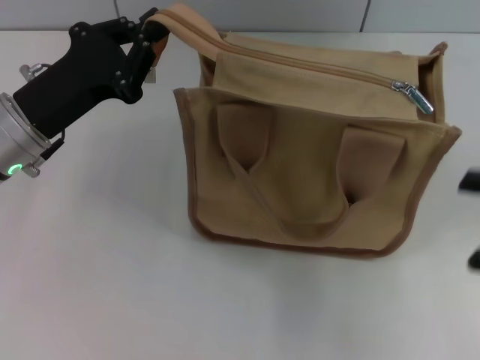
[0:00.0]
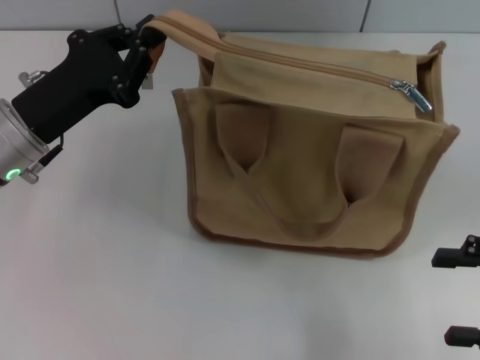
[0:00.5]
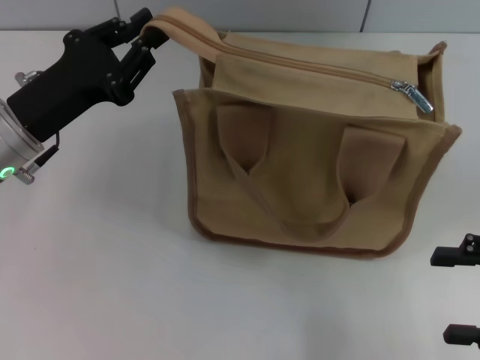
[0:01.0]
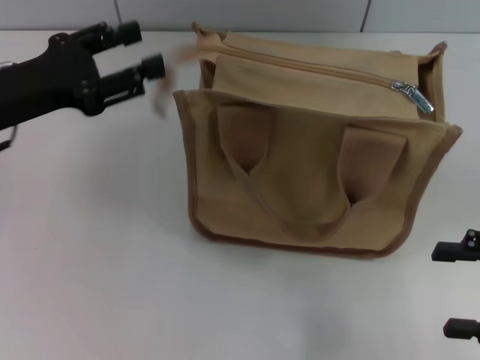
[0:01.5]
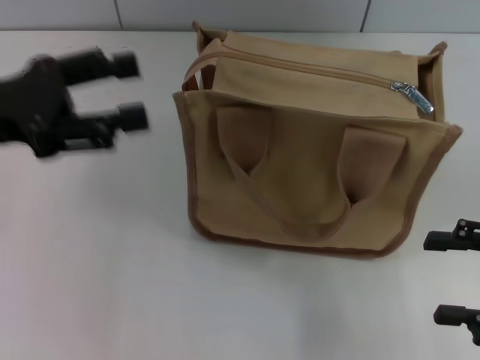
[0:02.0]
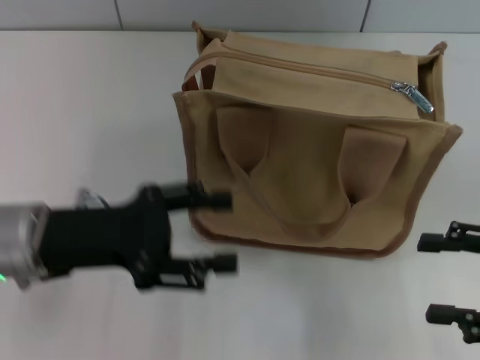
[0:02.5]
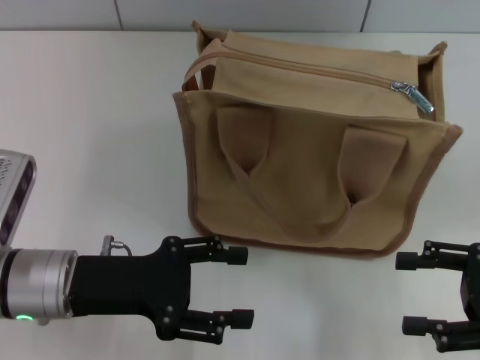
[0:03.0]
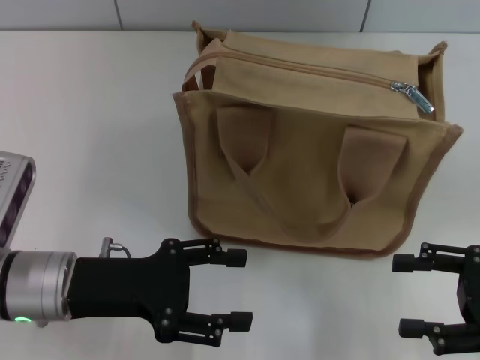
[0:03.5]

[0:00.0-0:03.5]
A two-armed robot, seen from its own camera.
0:00.0 to 0:02.0: The left gripper moves upward and to the left, approximately 10 cm, and opens up.
0:02.0 to 0:03.5: The left gripper heads downward, to the right and backward, covering roughly 15 cm.

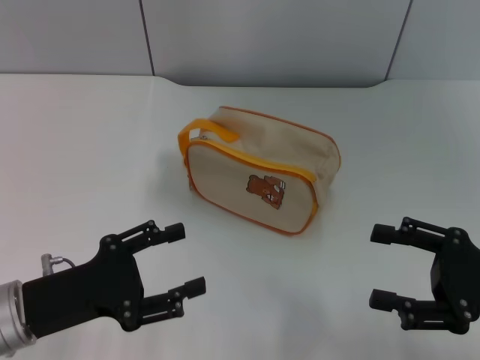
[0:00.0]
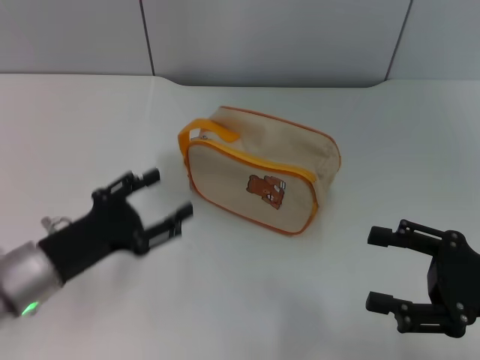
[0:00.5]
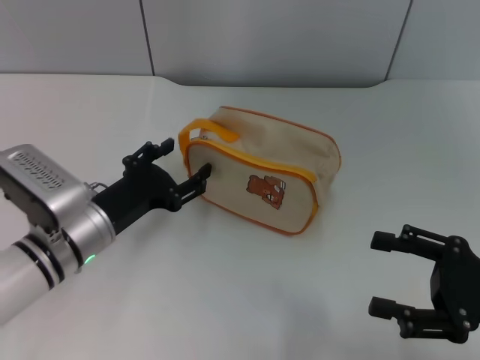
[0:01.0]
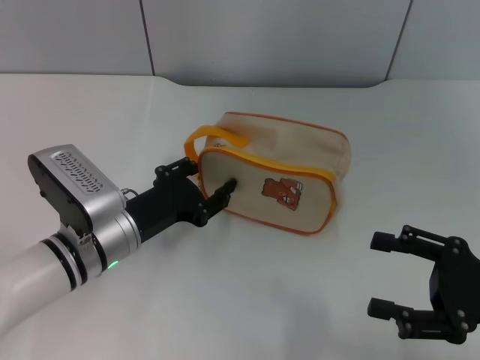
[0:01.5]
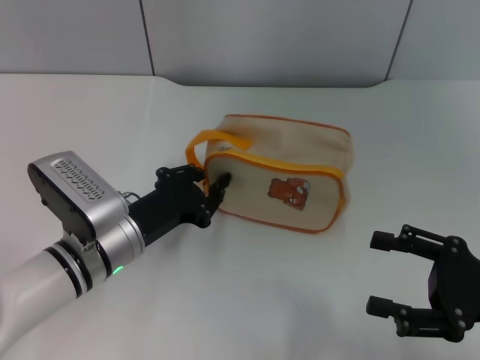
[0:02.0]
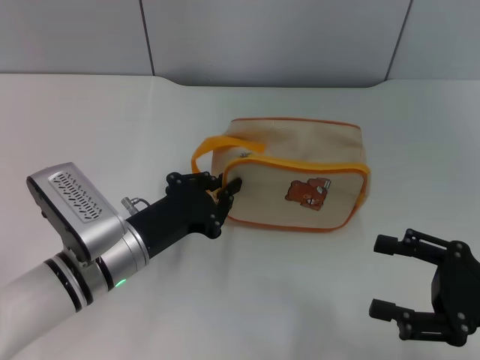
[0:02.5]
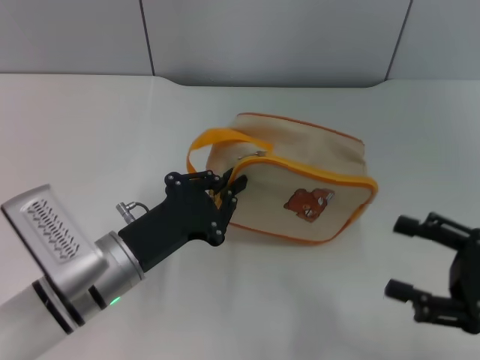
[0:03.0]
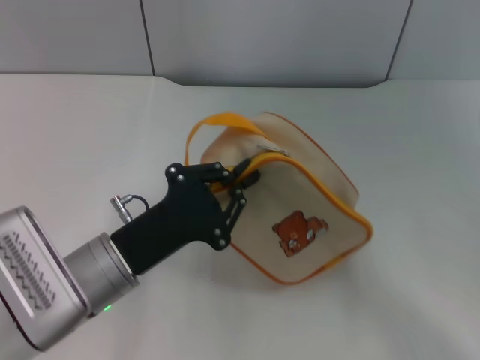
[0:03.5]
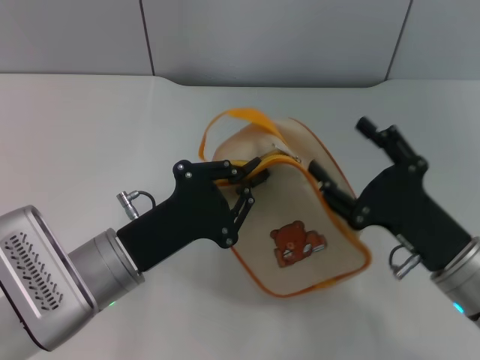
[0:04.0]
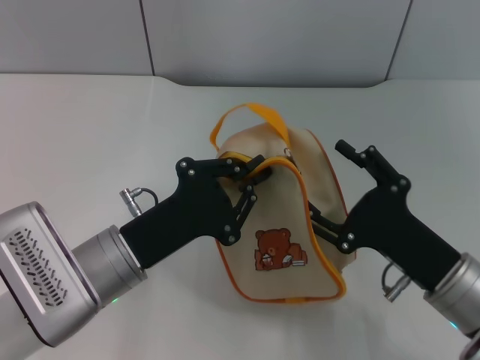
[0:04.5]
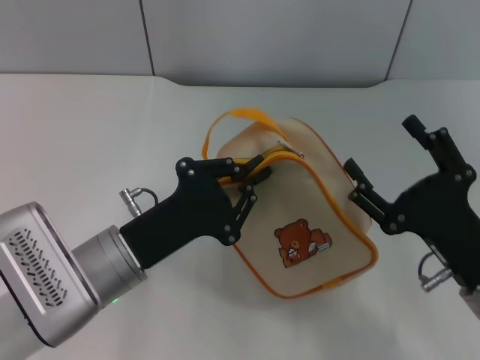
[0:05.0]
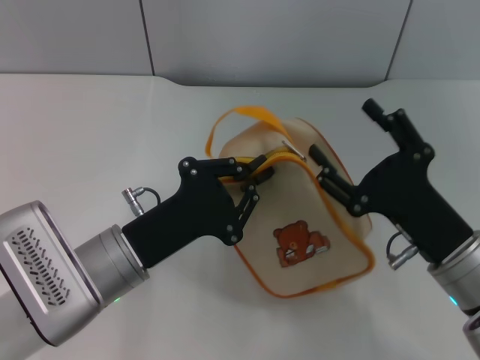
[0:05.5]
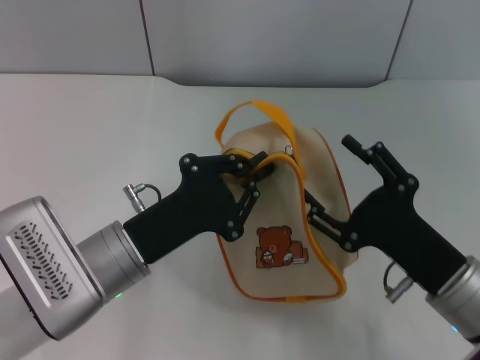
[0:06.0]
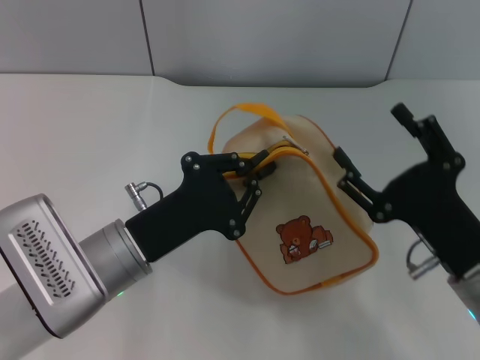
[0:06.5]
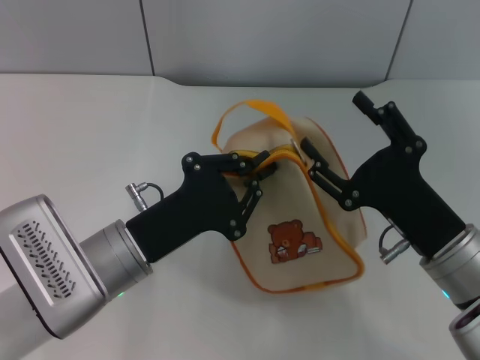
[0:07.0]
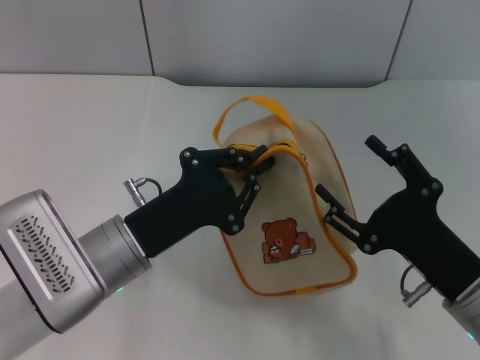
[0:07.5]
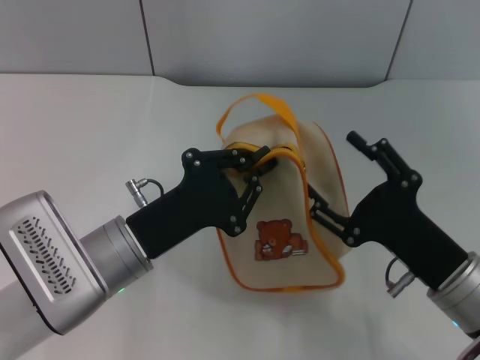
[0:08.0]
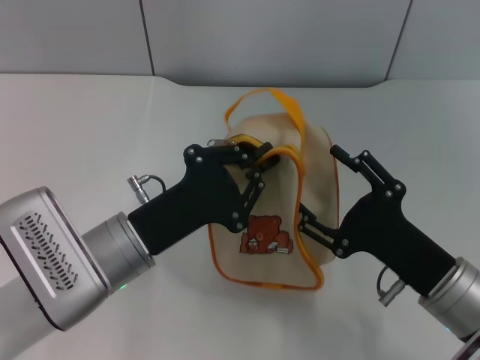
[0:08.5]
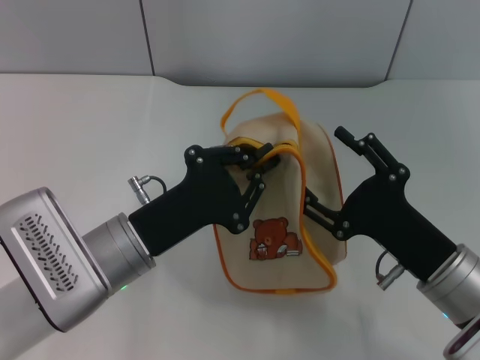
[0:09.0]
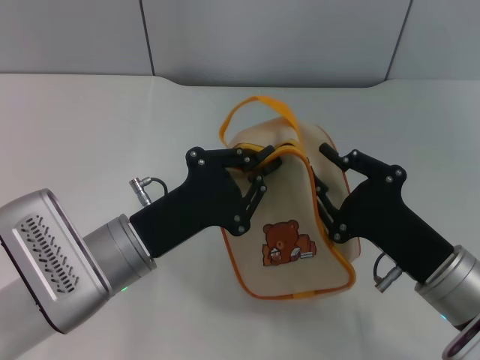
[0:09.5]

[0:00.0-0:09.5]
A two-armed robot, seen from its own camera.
Step, 0:00.0 to 0:03.5: Pick up the bag with left gripper.
0:00.0 to 0:02.0: The left gripper is displaced to the right and forward by about 10 cm, and closes its fingers.
0:02.0 to 0:04.0: The left gripper shifts by some 5 cm, and closes its fingers. The right gripper shifts about 10 cm to the left.
0:04.0 to 0:07.5: There are only small adjustments of the grippers.
0:07.5 to 0:09.5: The right gripper closes up.

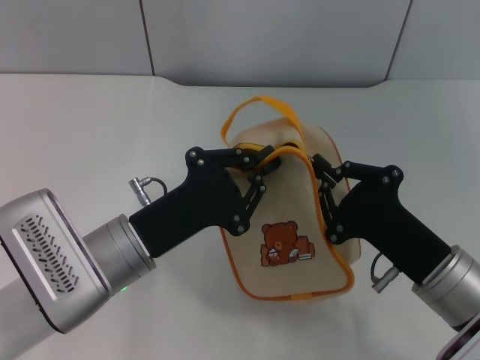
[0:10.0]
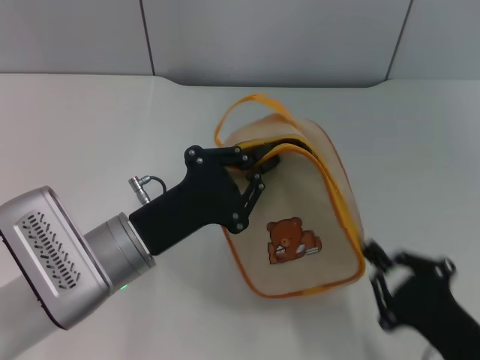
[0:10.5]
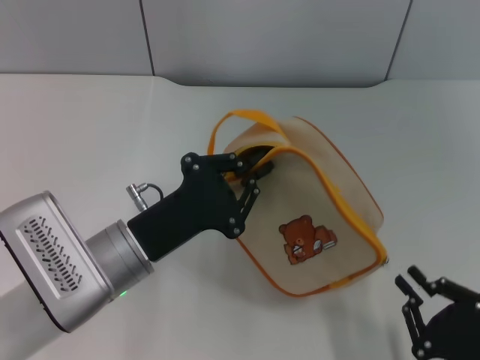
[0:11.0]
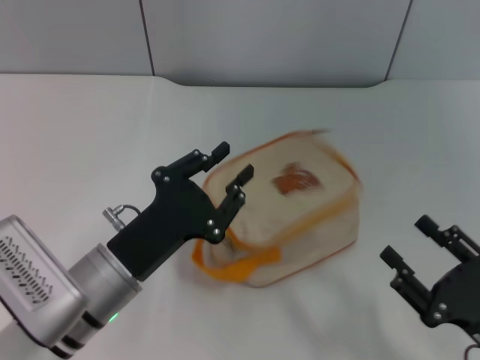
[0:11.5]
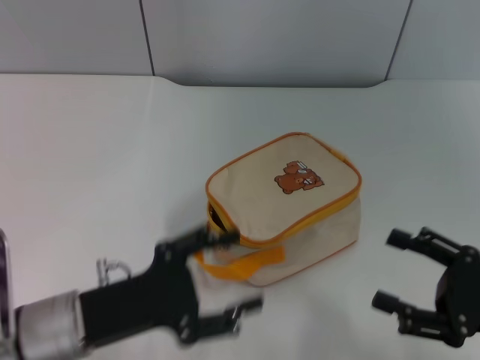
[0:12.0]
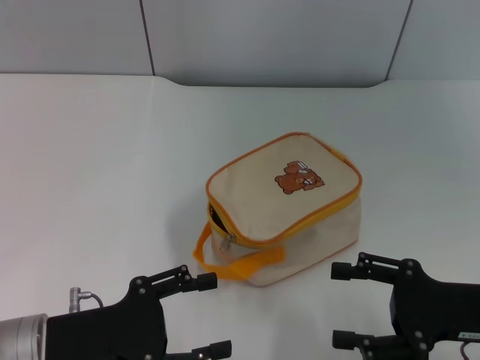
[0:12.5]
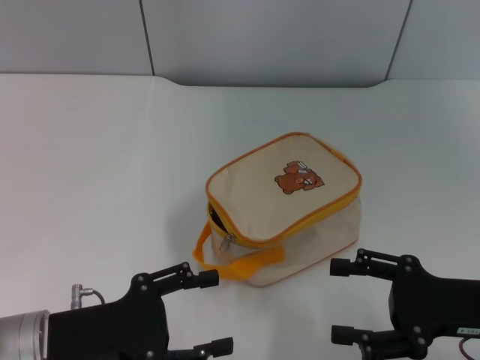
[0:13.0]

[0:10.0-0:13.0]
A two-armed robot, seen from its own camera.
0:10.0 to 0:11.5: The right gripper moves backward and to the right, about 10 cm, and opens.
0:11.5 to 0:13.0: The right gripper heads forward and upward, covering approximately 10 cm, and opens, while the left gripper travels to the left by roughly 5 cm, and opens up.

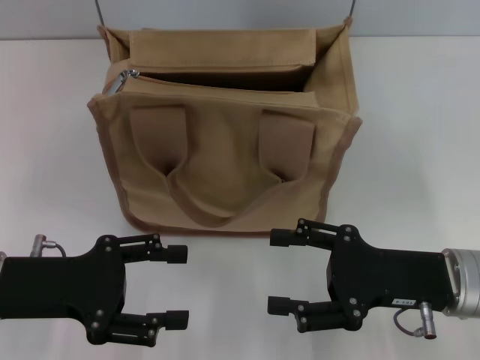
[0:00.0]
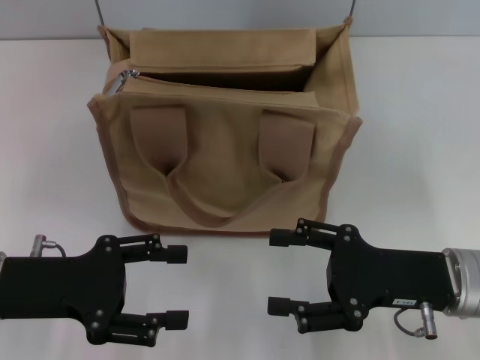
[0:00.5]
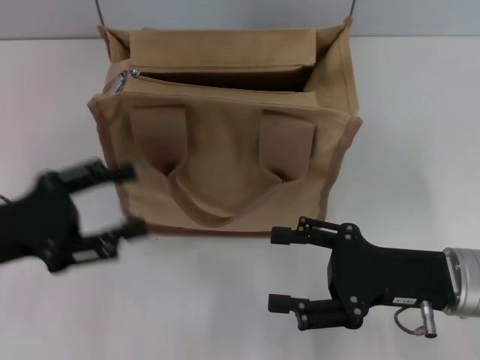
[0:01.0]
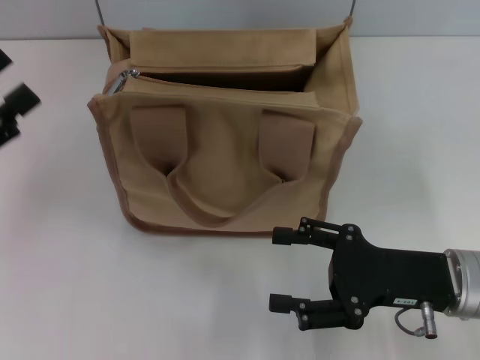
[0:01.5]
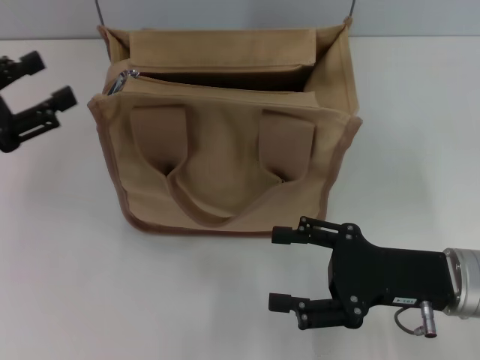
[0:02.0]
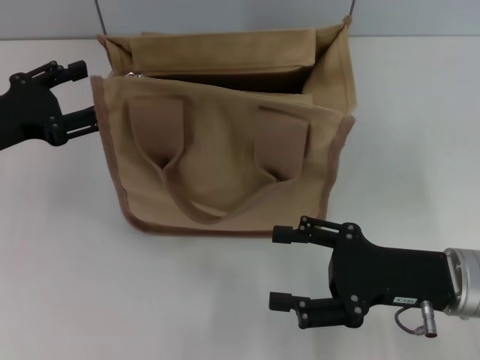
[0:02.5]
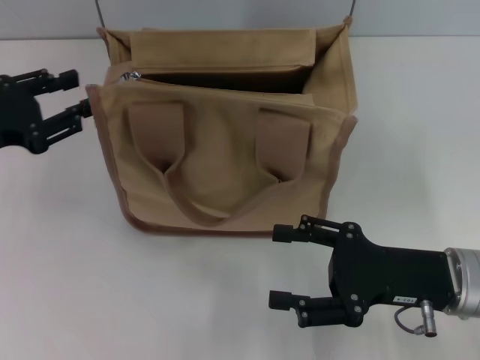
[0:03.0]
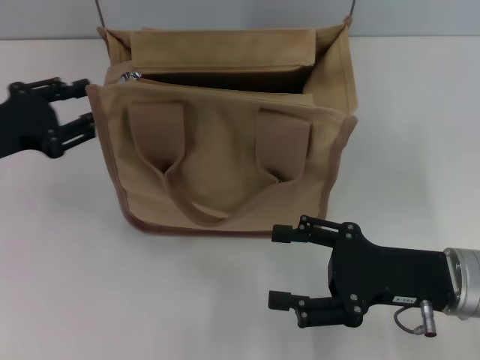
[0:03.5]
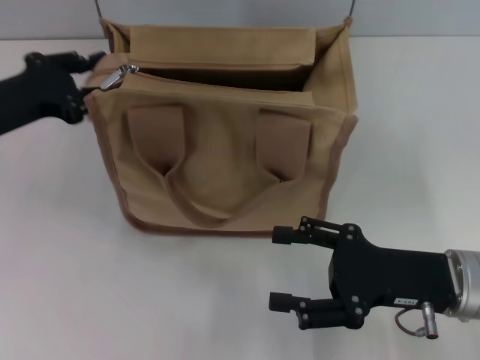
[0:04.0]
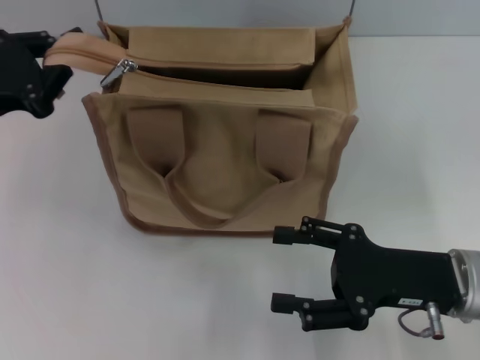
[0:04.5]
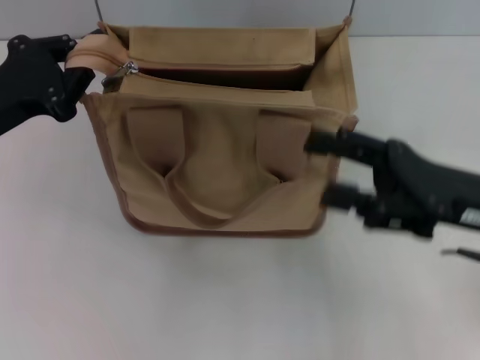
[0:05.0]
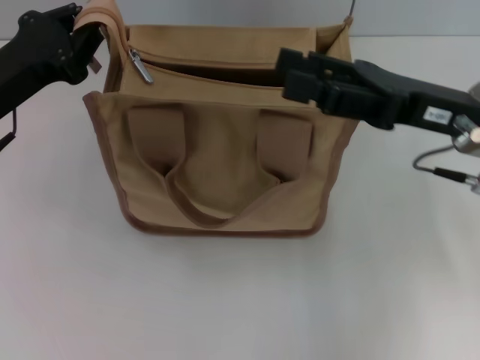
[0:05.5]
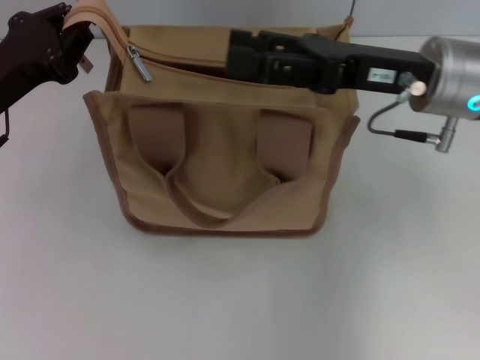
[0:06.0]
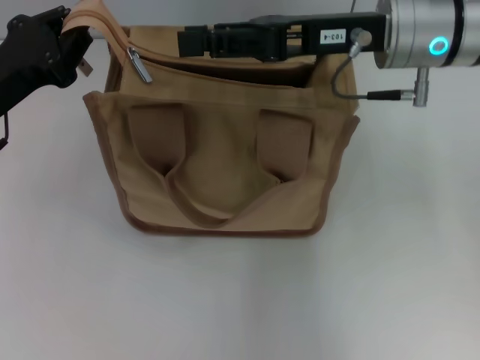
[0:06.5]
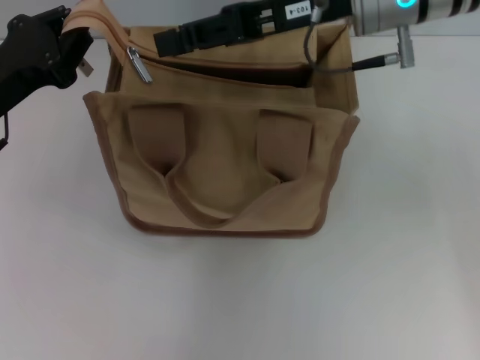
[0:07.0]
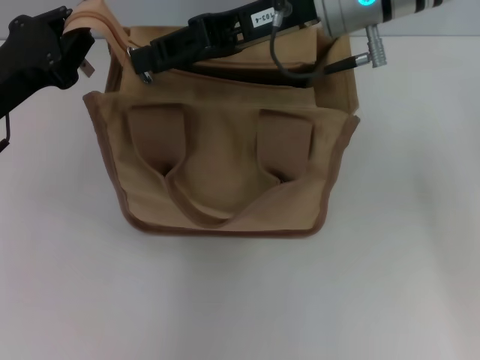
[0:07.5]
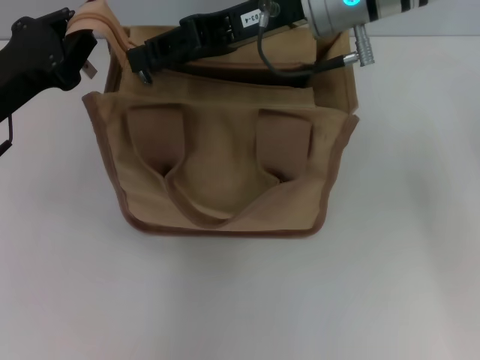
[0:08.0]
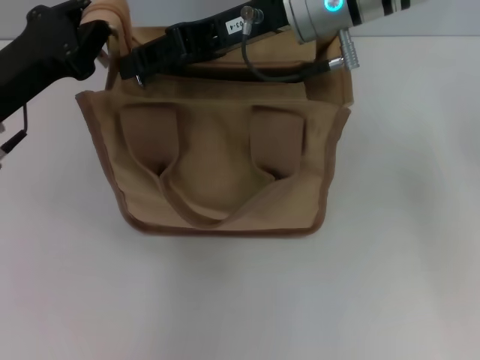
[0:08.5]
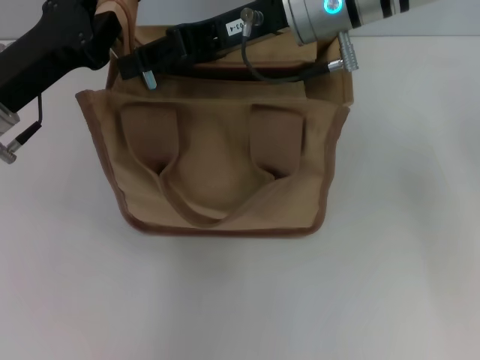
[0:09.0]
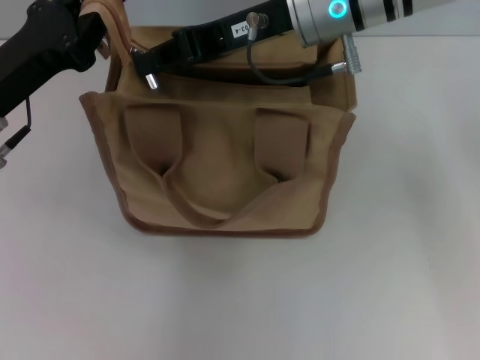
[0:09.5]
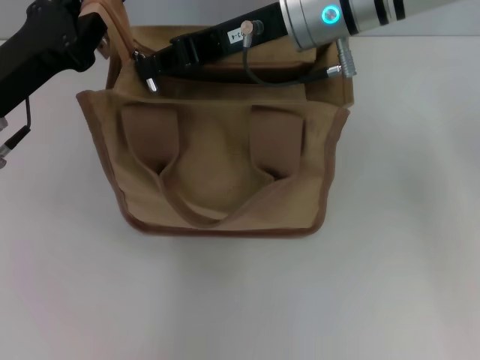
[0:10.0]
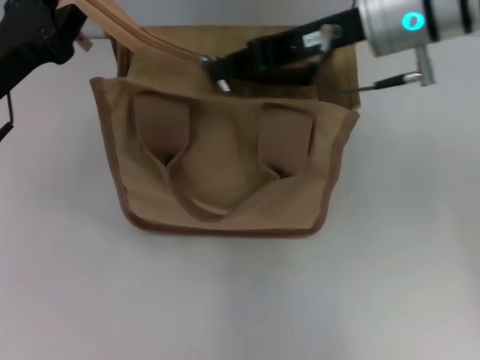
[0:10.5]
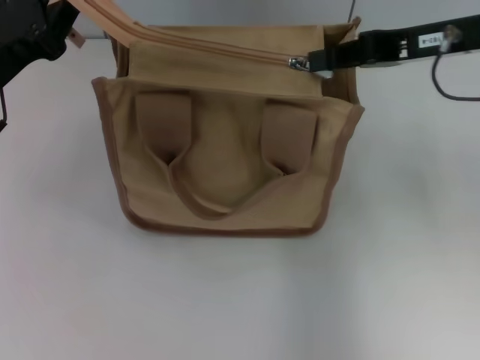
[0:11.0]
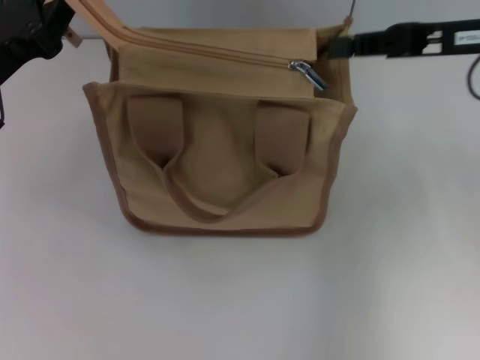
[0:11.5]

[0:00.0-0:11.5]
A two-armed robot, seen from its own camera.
Step, 0:00.0 to 0:11.5: Pull up the zipper with your right hand.
0:00.0 to 0:02.0: The left gripper travels to the left and forward by roughly 10 cm.
0:02.0 to 0:04.0: The left gripper goes approximately 5 cm forward, and closes up.
0:04.0 to 0:06.0: The right gripper is displaced forward and upward by some 15 cm. Meanwhile the left gripper closes.
0:06.0 to 0:07.5: The right gripper moves to the left, upward and forward, about 10 cm, and closes.
0:07.5 to 0:09.5: The grippers make only small movements.
0:09.5 to 0:11.5: The right gripper travels to the right by approximately 15 cm.
